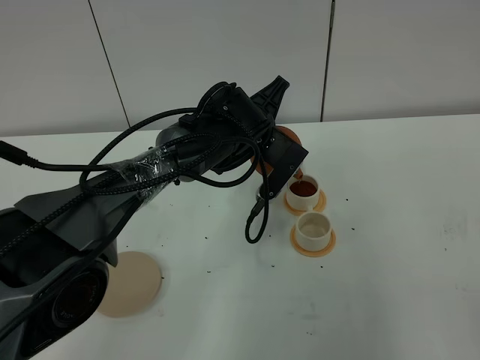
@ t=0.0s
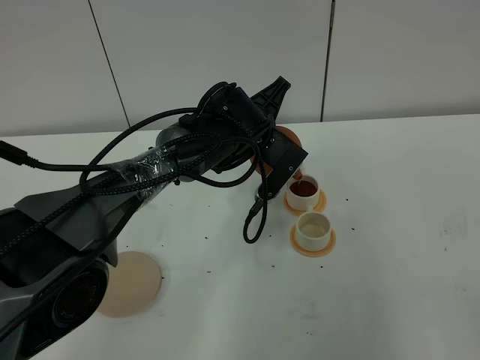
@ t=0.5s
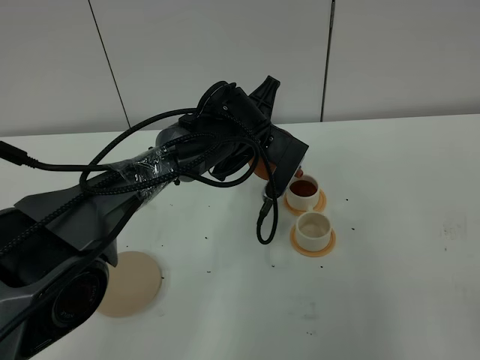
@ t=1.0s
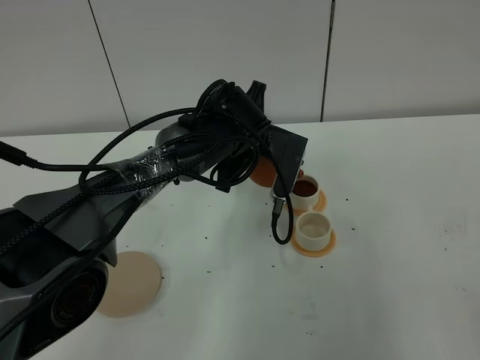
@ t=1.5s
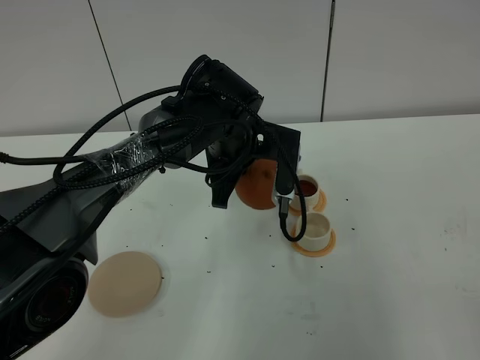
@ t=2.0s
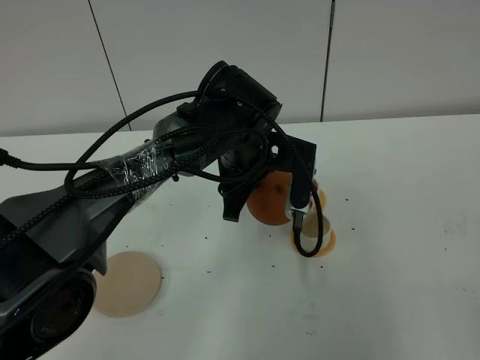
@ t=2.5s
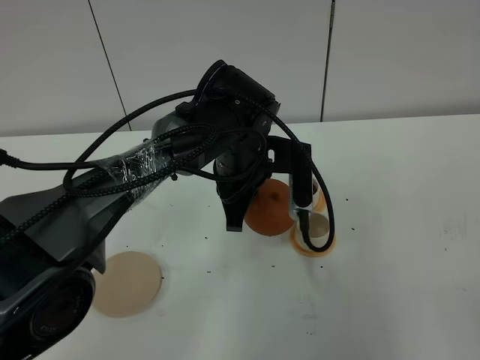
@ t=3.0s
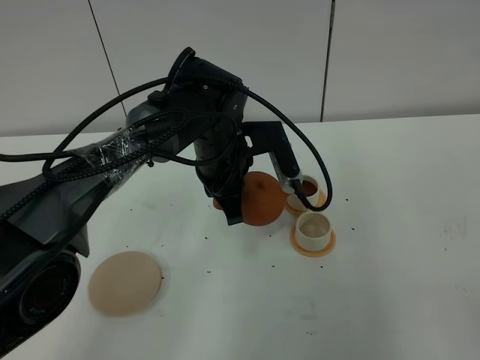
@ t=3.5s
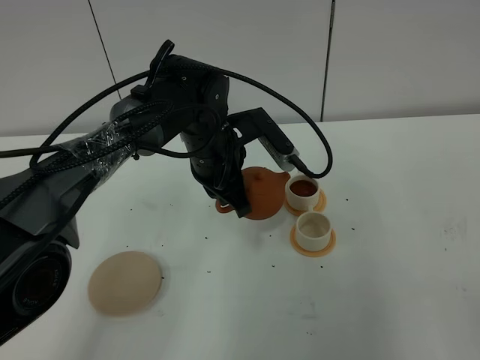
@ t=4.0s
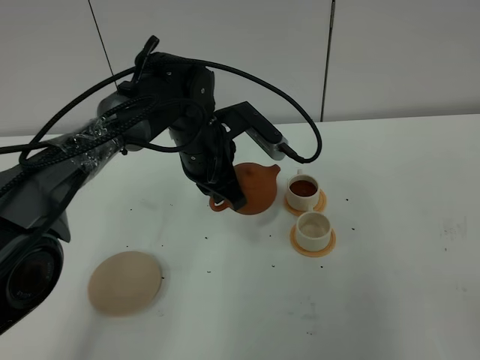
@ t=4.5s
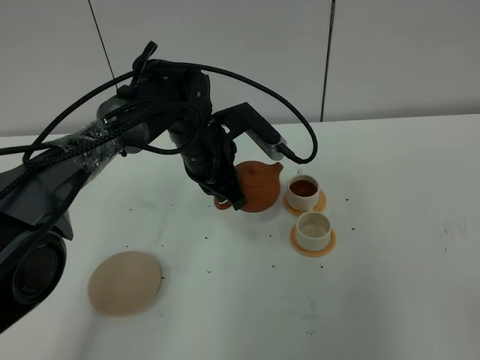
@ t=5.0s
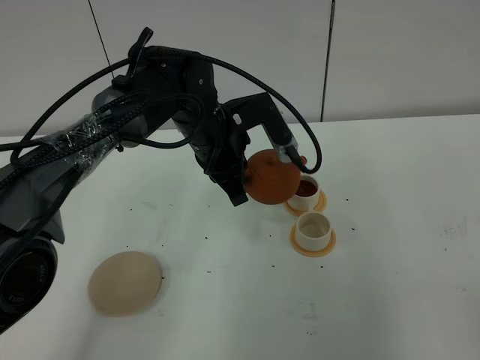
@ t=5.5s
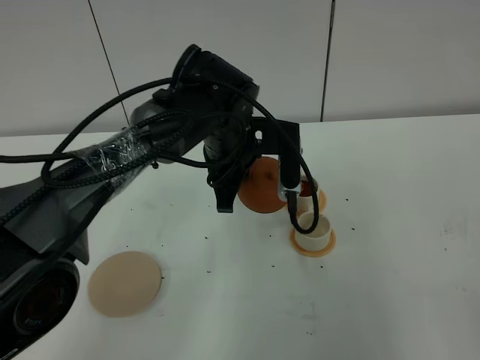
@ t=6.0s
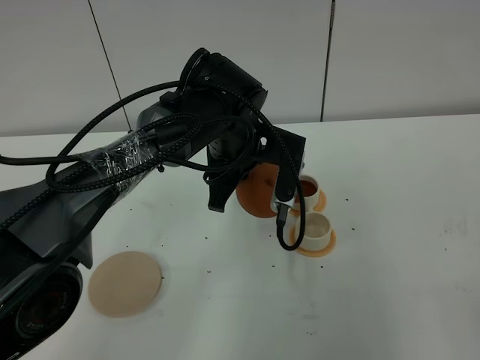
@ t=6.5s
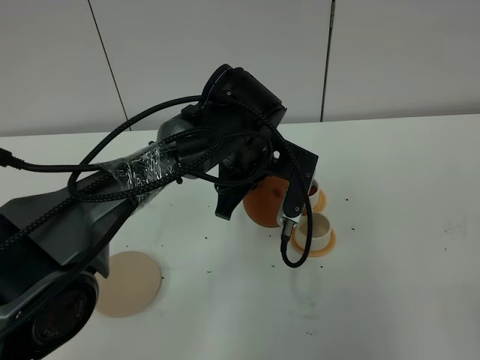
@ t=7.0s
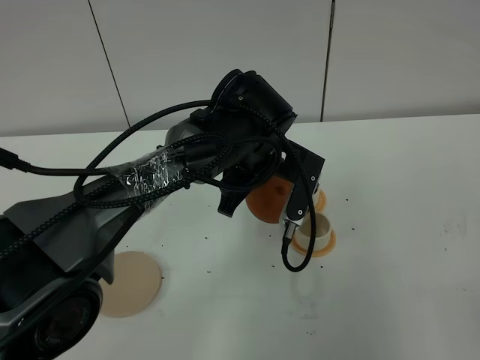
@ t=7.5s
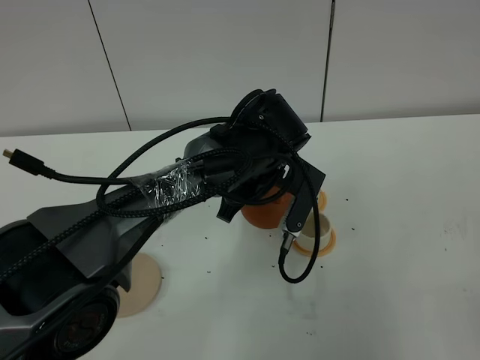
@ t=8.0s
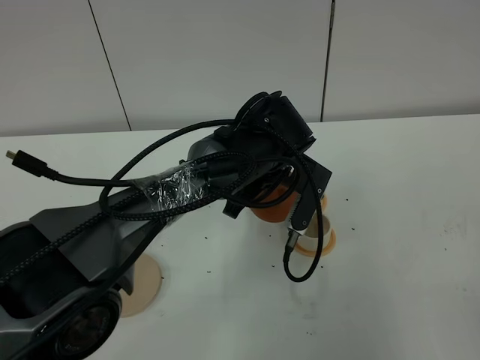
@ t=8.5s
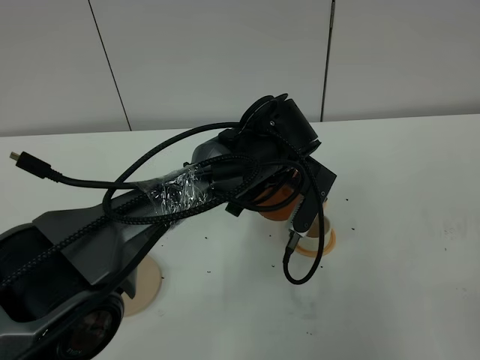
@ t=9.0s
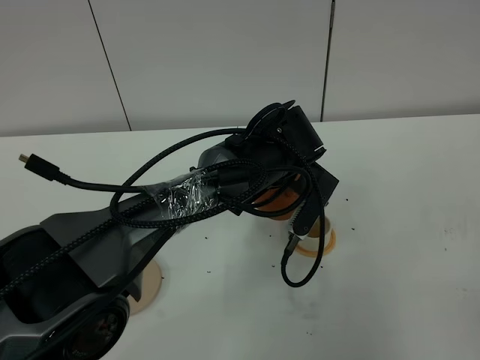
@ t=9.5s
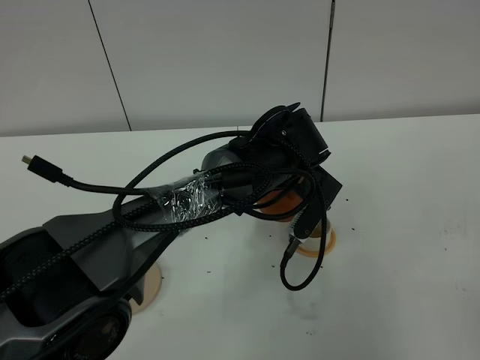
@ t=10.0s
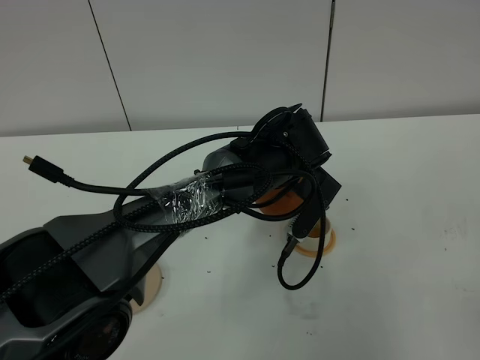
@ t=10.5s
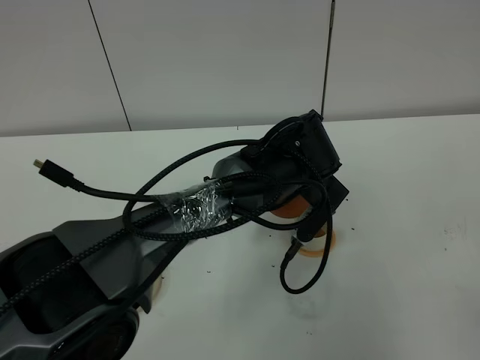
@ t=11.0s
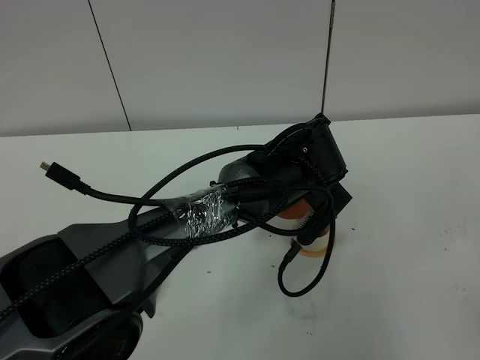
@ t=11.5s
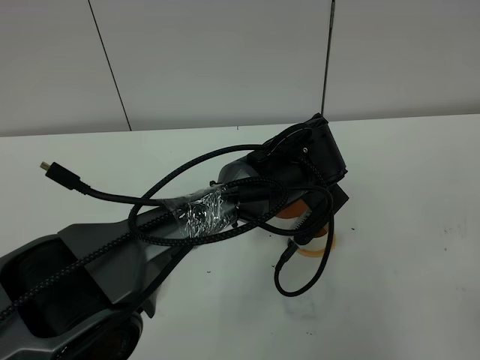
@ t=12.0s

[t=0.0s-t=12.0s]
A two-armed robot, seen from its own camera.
Task of the whole recording: grasp the brown teapot and pour the tea into the two white teacups one by one, put the brown teapot back in its original place.
t=8.0s to t=10.0s: There are only small adjustments of the grippers.
t=10.0s to t=12.0s: The grippers move only a little.

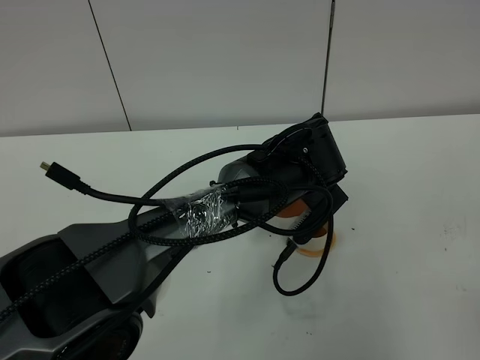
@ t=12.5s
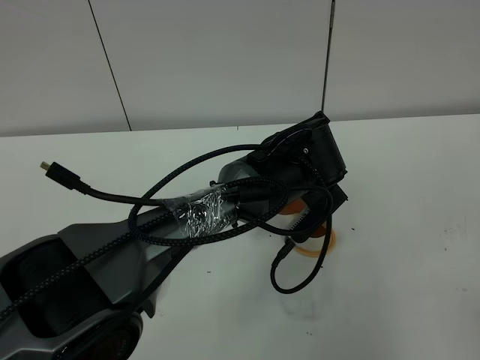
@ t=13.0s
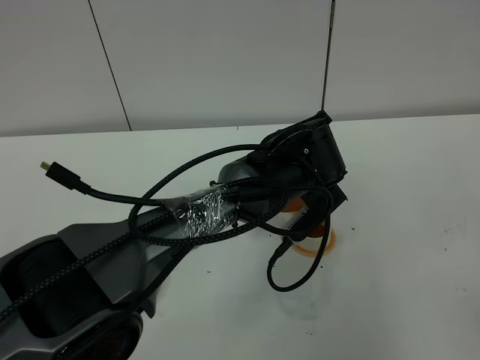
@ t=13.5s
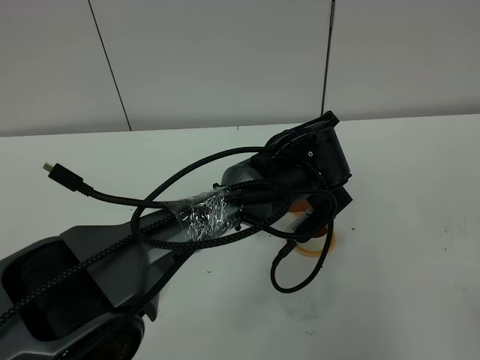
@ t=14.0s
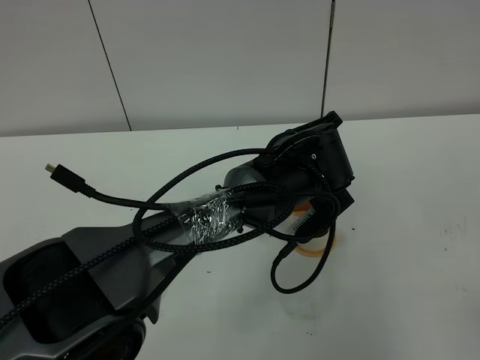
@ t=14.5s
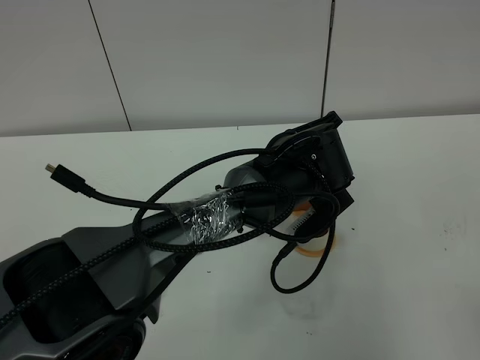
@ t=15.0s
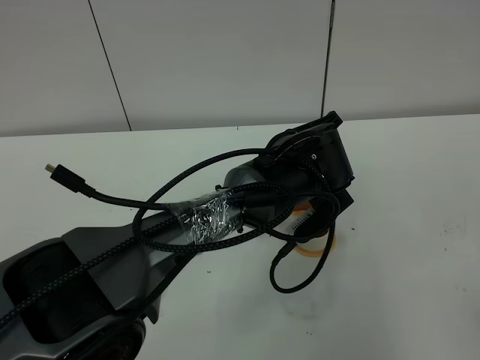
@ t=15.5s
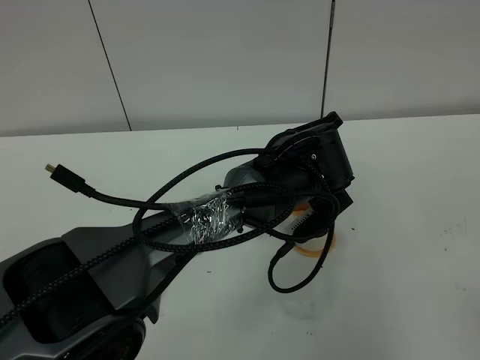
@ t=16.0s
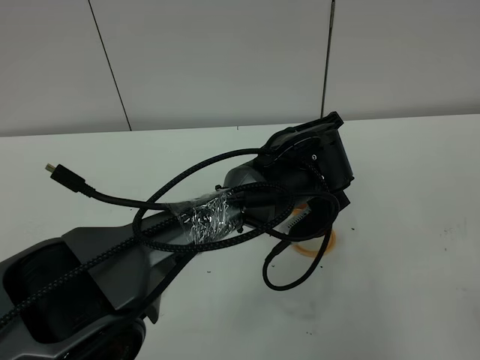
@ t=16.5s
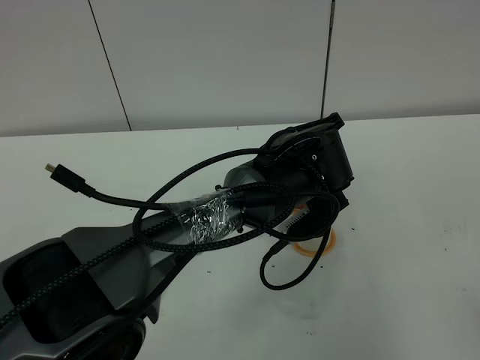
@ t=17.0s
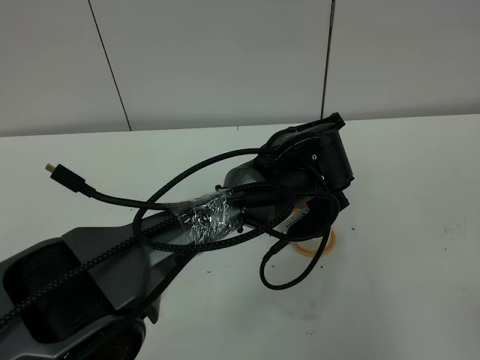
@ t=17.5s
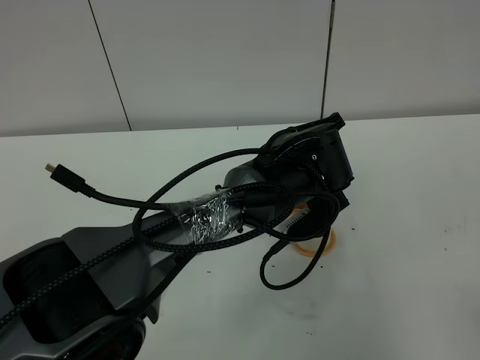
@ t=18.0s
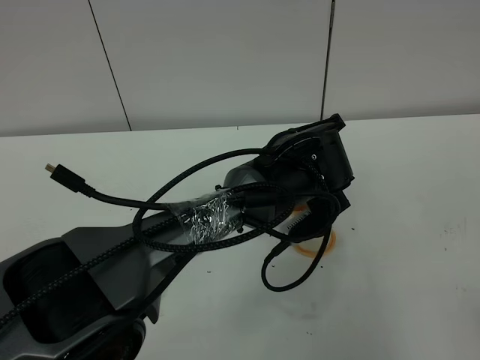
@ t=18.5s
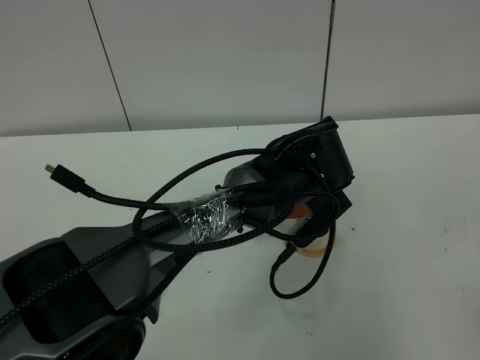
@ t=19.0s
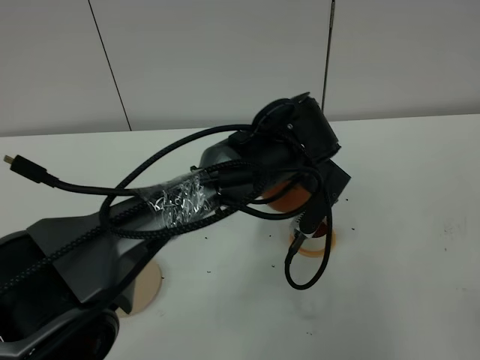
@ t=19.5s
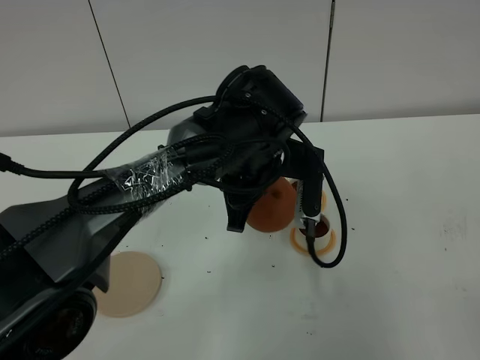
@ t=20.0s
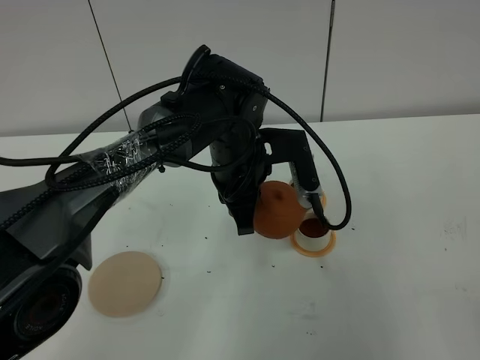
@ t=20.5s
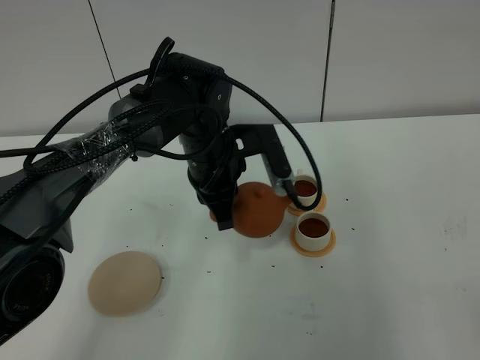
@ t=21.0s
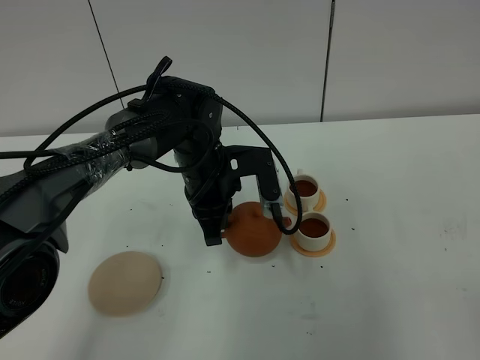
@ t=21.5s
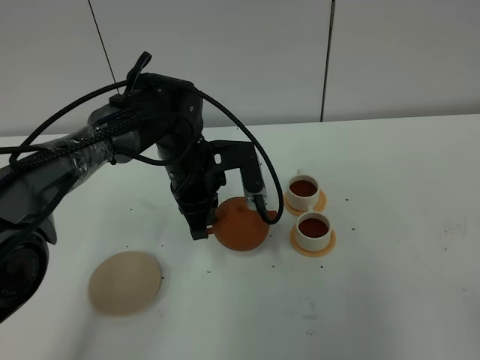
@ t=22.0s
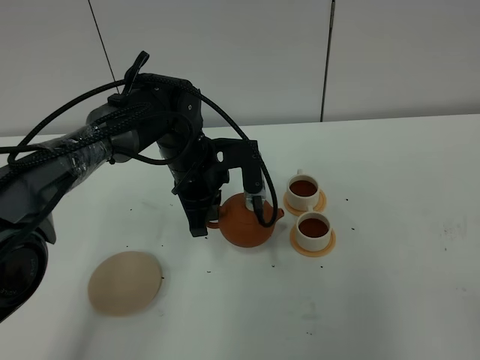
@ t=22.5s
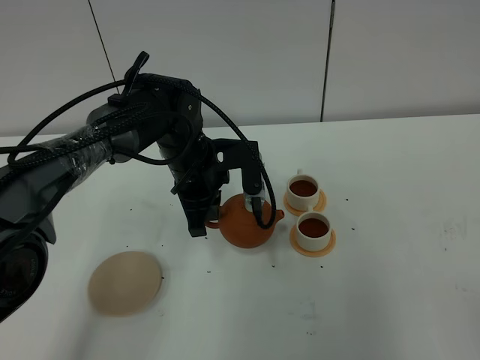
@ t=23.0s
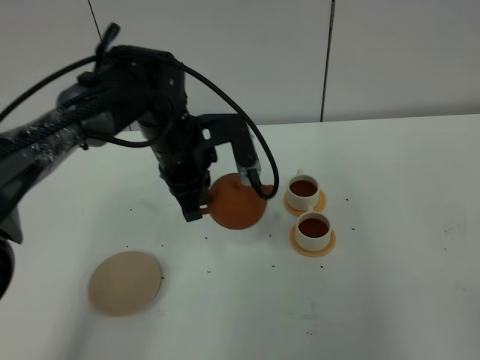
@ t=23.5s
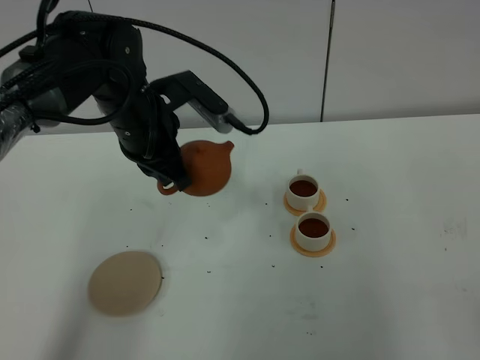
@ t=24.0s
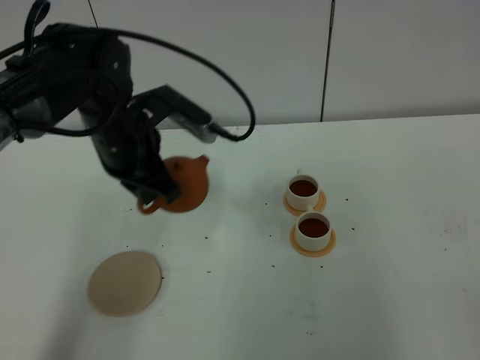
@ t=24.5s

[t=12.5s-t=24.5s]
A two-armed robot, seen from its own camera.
Task of the whole recording: grasp the brown teapot and pour the tea into the two white teacups one by one, put the brown teapot back in its original place.
Step, t=12.5s to t=20.0s: Pour tea into the teacup with the left gripper.
t=12.5s to t=14.5s: The grippers make only small movements.
t=14.5s to t=16.5s: The two grippers keep their place.
t=16.5s to t=18.5s: The two grippers keep their place.
t=18.5s to t=20.5s: The left gripper goes roughly 10 cm to the left.
t=20.5s to t=22.5s: The left gripper is displaced to the left by roughly 5 cm.
t=22.5s to t=24.5s: The left gripper shifts roughly 10 cm upward and to the left.

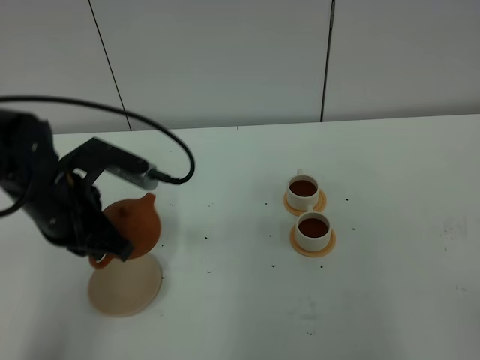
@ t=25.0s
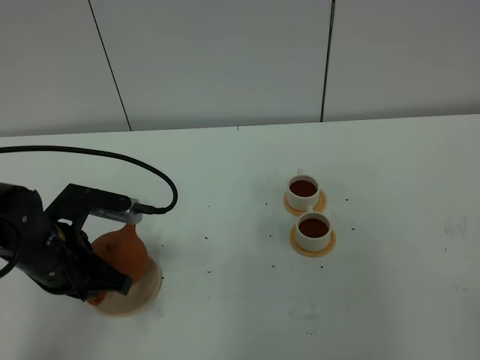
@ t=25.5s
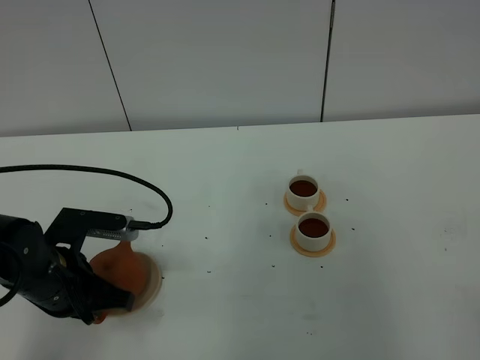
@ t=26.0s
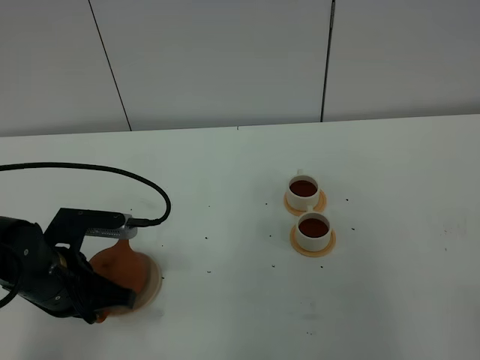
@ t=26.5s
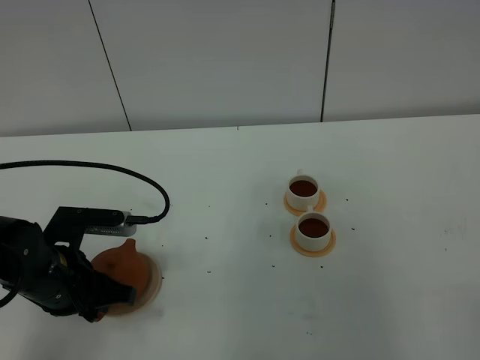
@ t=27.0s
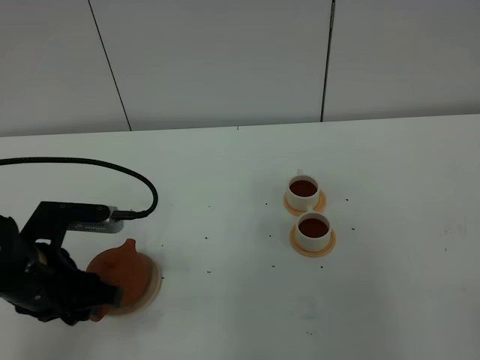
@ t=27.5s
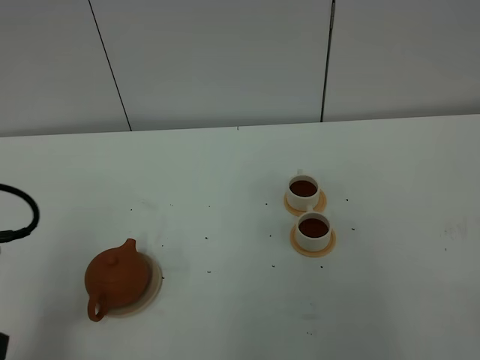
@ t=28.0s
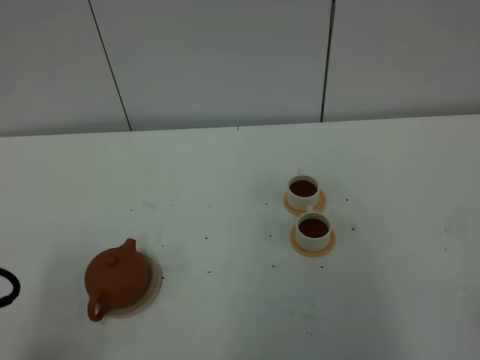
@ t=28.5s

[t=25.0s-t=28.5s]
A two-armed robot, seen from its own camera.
Task of the whole recording: grasp the brown teapot and pour the tea into the two white teacups one by one, put the brown teapot back in its original place.
t=25.0s to t=27.0s: The left gripper is displaced downward by roughly 5 cm, and opens its fingers.
t=27.0s to t=28.5s: The left gripper shifts roughly 20 cm backward and upward.
